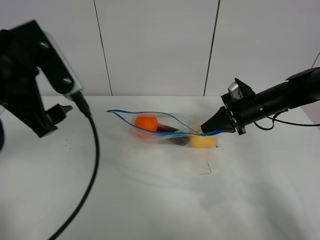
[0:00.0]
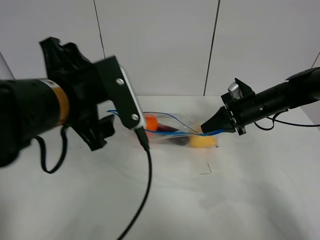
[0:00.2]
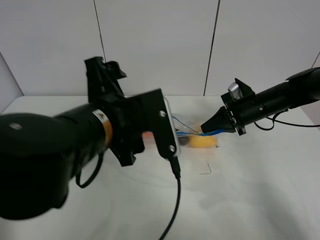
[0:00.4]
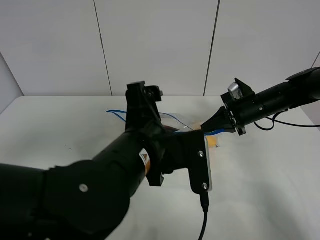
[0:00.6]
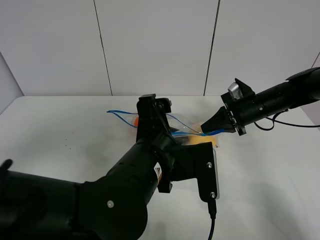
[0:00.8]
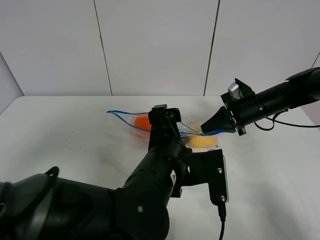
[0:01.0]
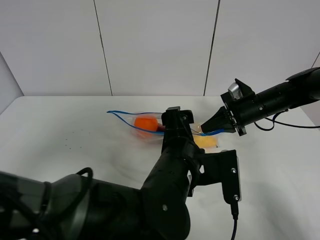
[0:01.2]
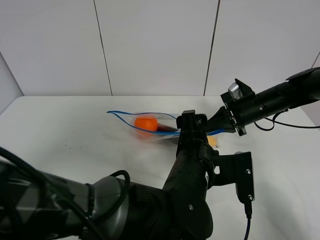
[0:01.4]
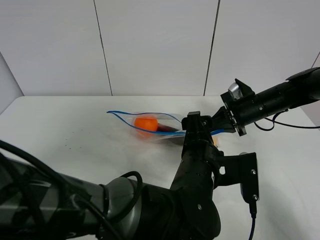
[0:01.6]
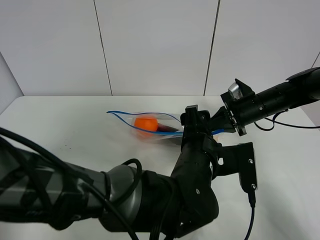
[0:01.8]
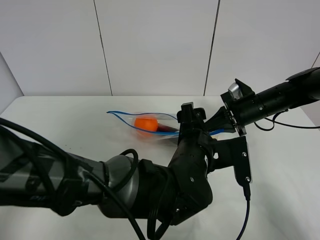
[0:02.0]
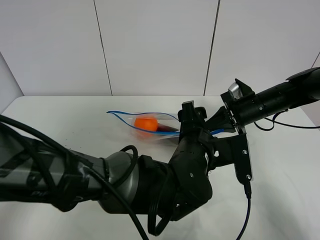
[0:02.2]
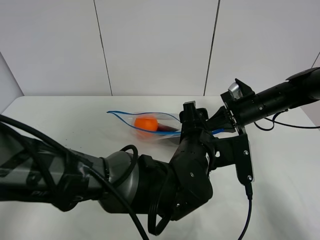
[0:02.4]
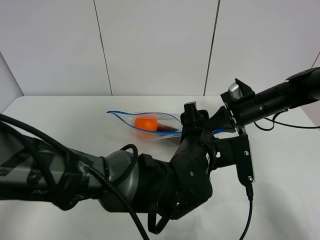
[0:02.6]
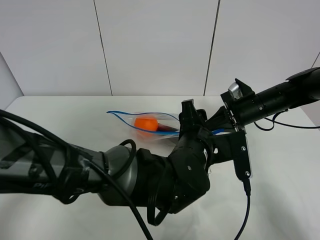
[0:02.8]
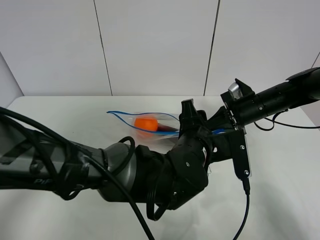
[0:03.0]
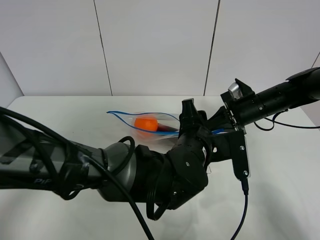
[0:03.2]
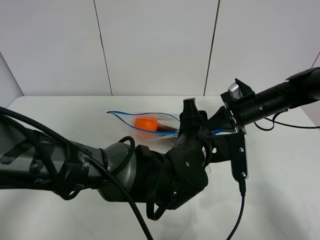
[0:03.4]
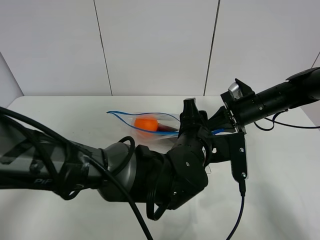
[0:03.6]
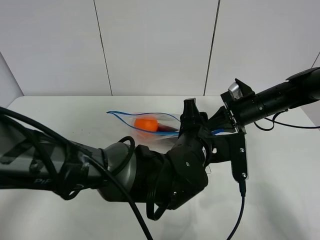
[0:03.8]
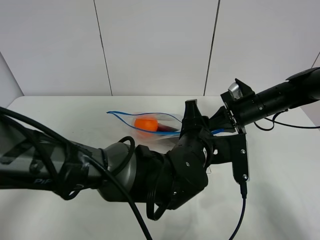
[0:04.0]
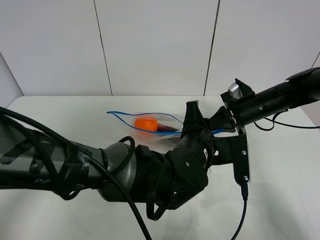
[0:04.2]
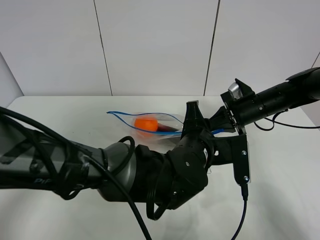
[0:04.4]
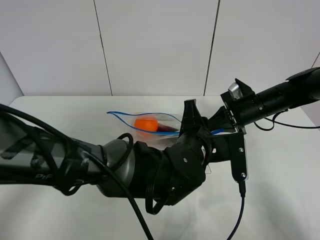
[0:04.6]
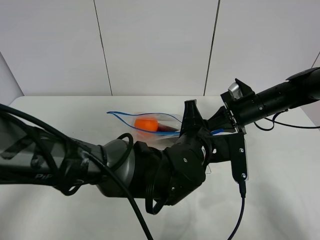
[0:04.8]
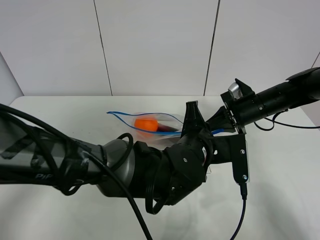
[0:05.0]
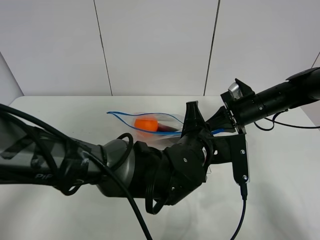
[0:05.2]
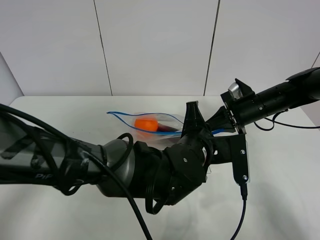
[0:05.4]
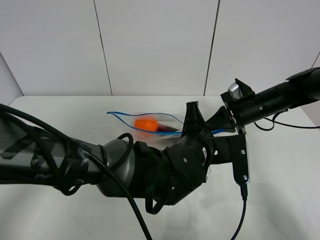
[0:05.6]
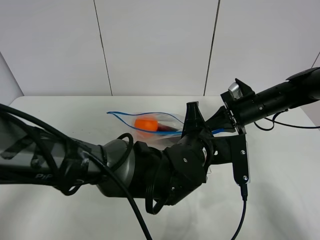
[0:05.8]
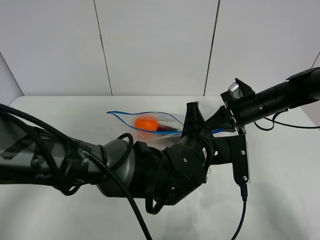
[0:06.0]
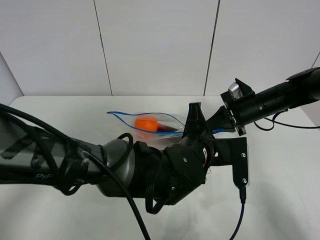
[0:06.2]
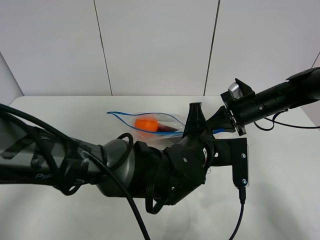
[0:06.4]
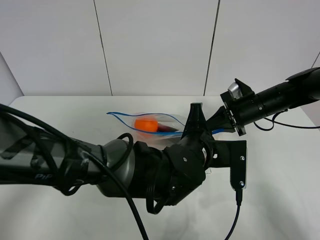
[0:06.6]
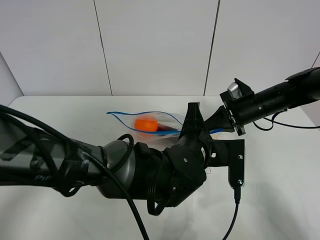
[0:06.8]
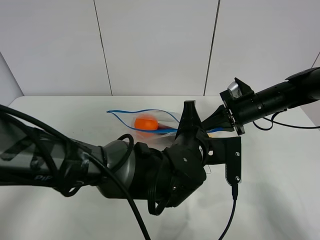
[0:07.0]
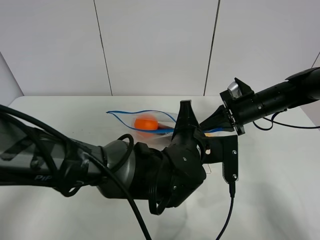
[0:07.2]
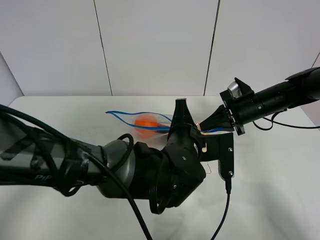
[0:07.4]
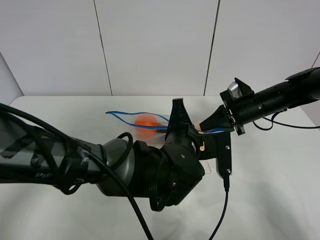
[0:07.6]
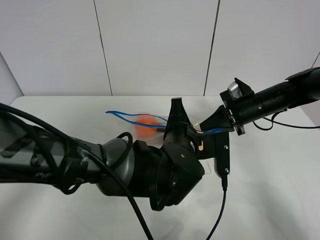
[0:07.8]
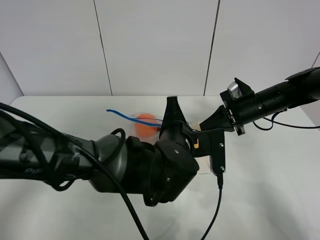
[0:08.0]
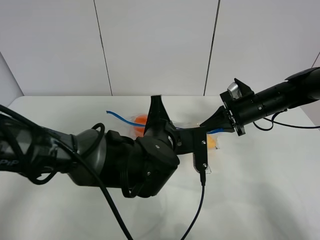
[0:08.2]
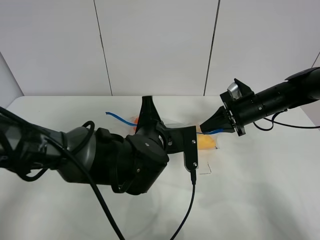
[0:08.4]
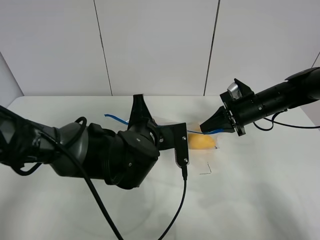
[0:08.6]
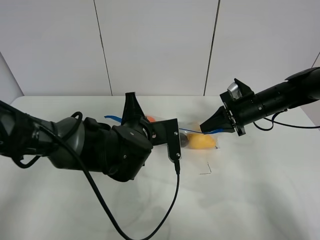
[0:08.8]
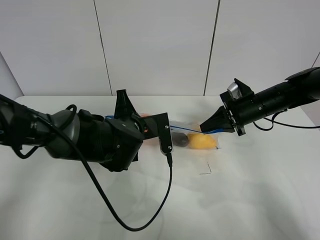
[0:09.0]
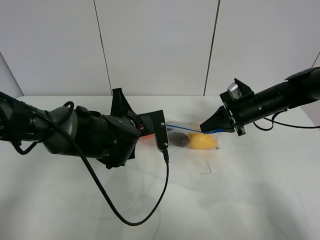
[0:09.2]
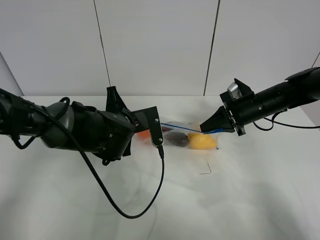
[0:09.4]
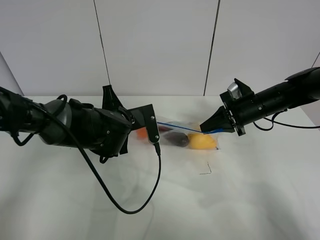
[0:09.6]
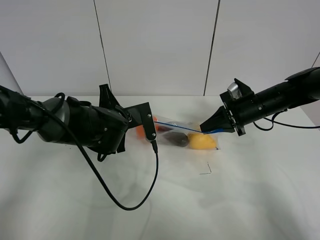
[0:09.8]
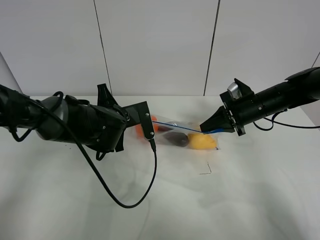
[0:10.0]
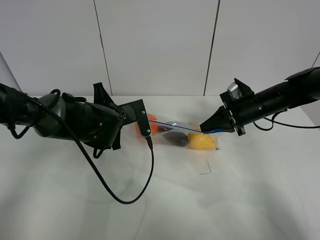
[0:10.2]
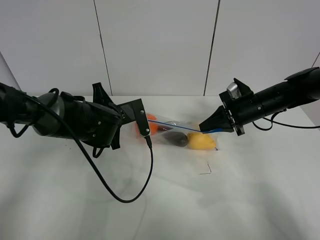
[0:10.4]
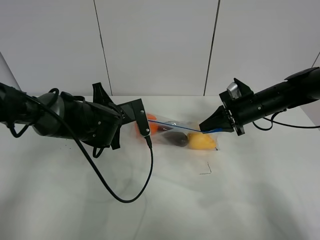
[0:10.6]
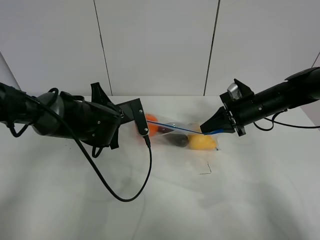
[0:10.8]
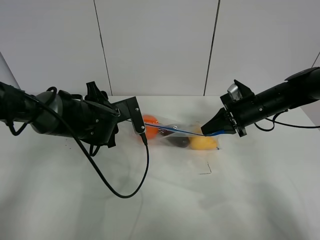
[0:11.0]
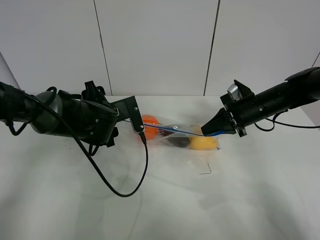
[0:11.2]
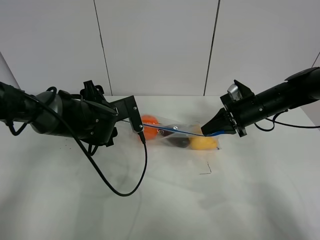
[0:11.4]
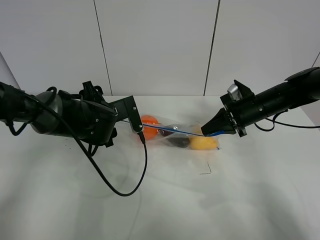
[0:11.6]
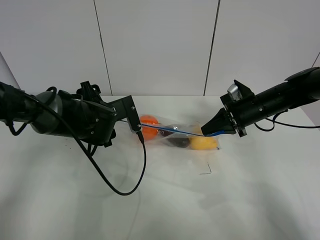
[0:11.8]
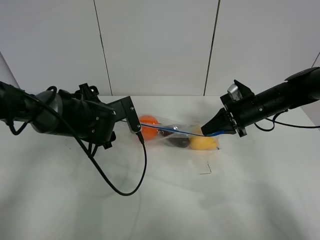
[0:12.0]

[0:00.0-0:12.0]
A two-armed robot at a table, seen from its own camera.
Step, 0:00.0 to 0:11.0: Pull the fruit bag with left gripper.
0:00.0 to 0:01.6: The left gripper travels to the right and downward by roughly 30 cm.
0:03.0 to 0:04.4: Neither gripper changes place.
0:04.4 to 0:06.0: The left gripper closes its fingers.
0:06.0 to 0:07.6: The grippers stay close to where they were, moving slightly.
0:07.6 to 0:09.0: The left gripper goes roughly 10 cm to the left and forward.
0:09.0 to 0:10.4: The left gripper ends up about 5 cm from where it was.
0:10.4 to 0:12.0: The left gripper opens.

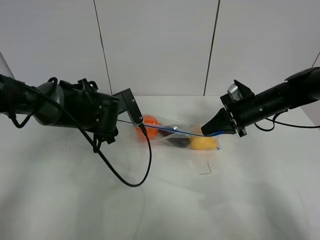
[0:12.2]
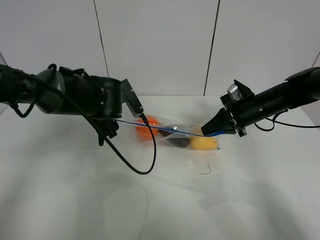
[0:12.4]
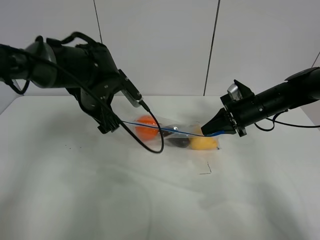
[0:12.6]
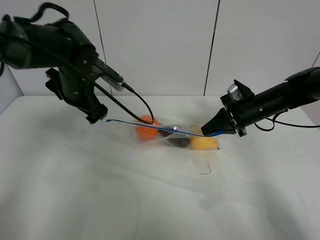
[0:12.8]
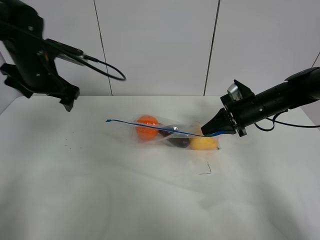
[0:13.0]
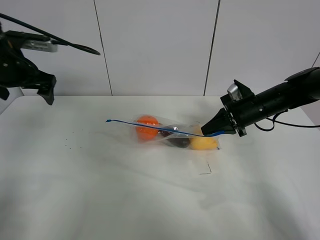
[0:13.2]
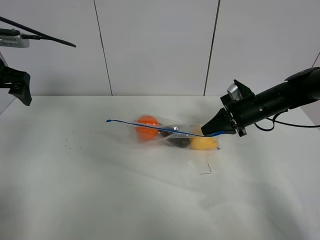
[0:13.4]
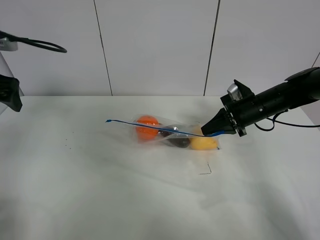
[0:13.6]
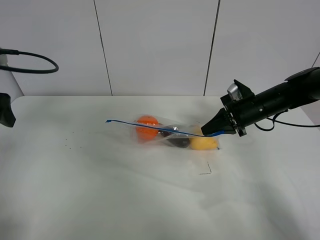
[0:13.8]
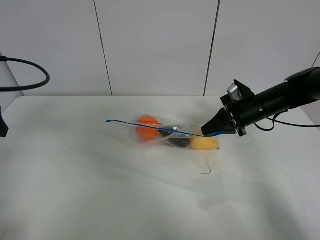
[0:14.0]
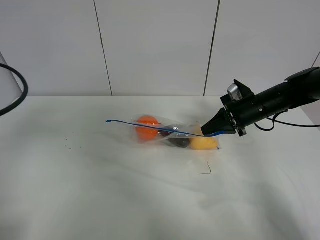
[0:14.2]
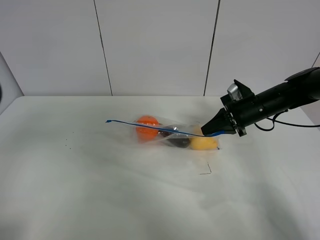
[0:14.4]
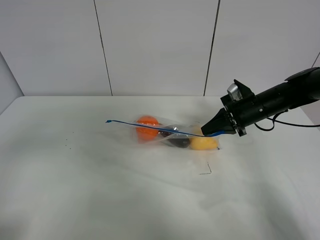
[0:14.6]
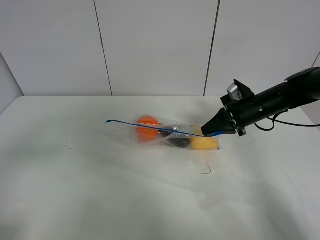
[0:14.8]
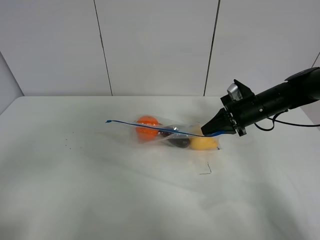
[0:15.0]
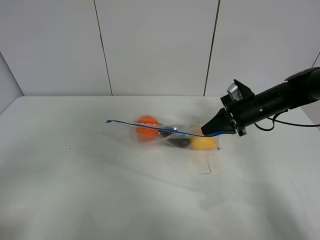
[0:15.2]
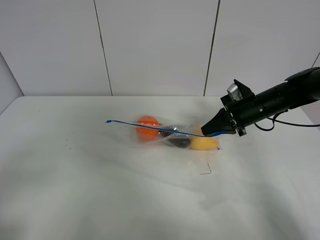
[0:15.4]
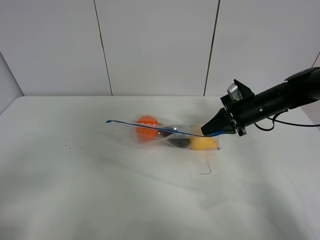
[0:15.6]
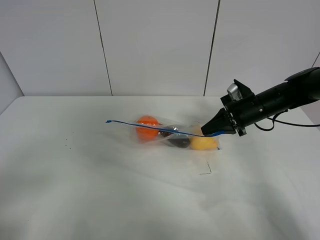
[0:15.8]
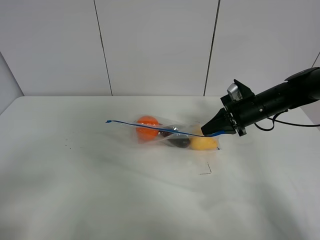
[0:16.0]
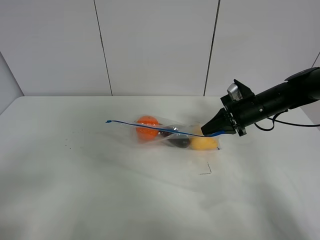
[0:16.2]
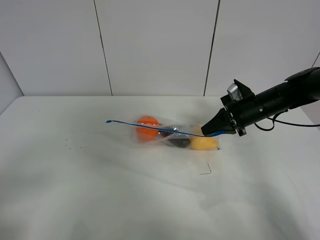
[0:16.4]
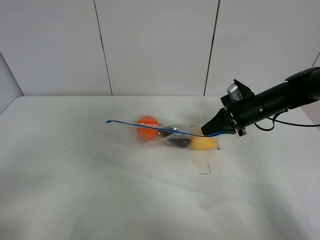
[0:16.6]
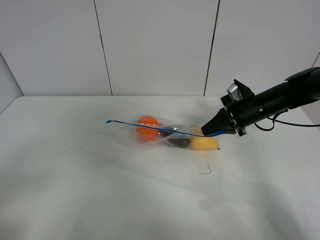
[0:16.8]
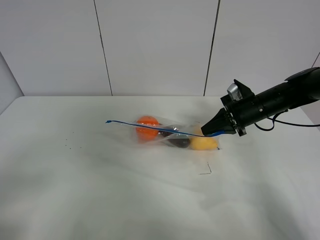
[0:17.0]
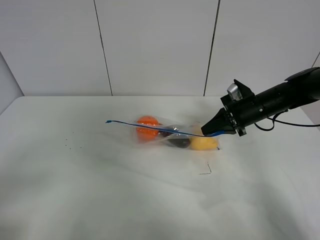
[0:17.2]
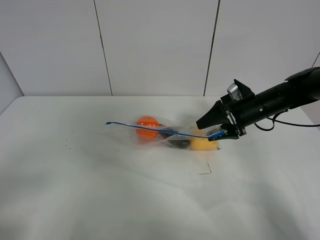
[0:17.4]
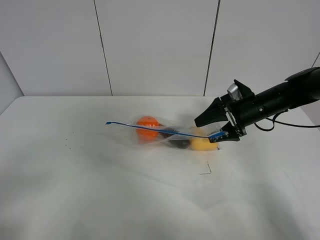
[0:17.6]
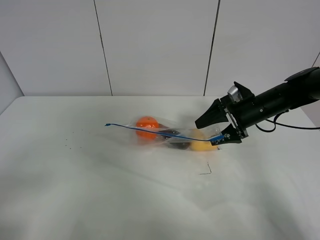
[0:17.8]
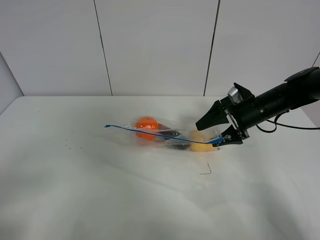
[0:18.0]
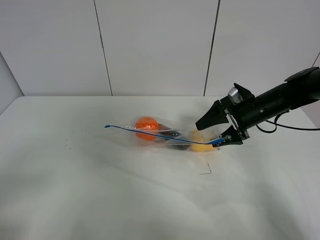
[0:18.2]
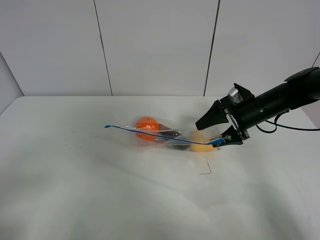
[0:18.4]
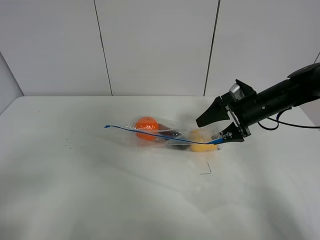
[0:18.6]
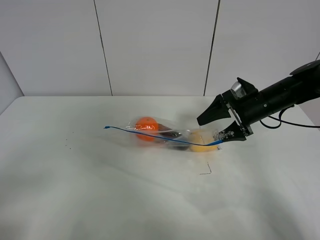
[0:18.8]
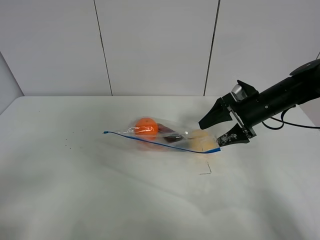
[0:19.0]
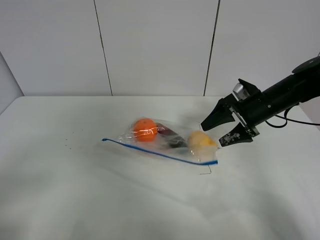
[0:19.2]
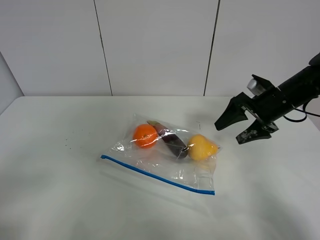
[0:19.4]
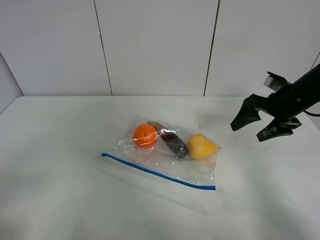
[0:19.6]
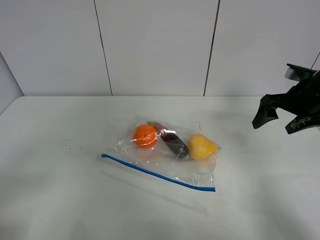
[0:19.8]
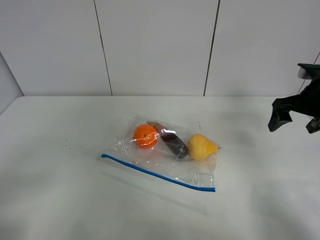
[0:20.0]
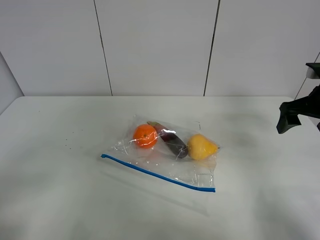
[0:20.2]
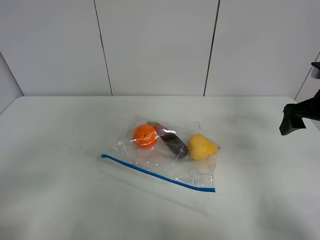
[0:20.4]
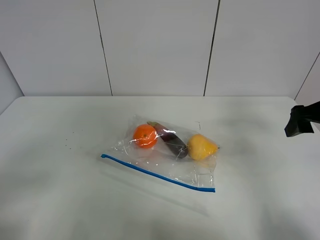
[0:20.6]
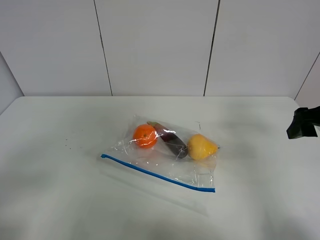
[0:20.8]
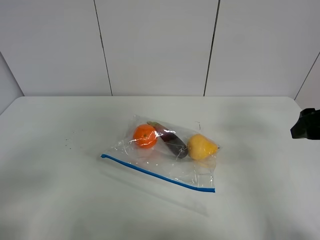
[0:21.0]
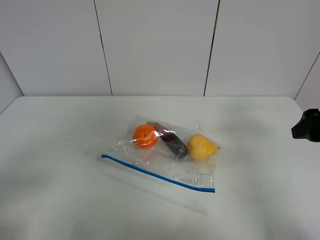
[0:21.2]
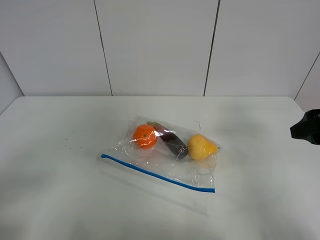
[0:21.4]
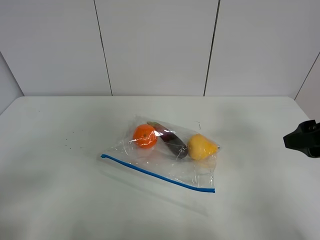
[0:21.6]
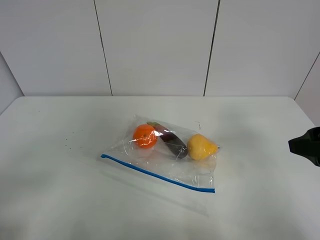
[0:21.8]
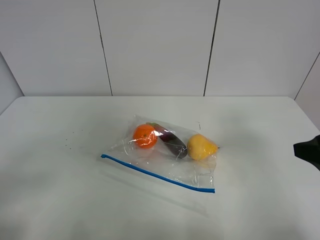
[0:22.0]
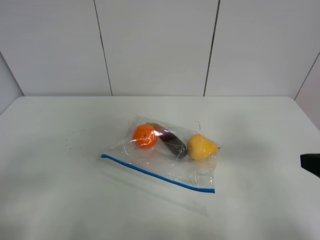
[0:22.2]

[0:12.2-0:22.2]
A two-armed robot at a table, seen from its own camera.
0:12.2 to 0:13.6: The left gripper shifts some 25 cm to the left and upward.
0:13.6 to 0:15.0: The left gripper heads backward, covering roughly 25 cm.
0:16.4 to 0:18.0: The right gripper opens its fingers.
0:18.0 to 0:19.4: The right gripper changes place by roughly 5 cm.
0:19.4 to 0:20.8: The right gripper travels backward, upward and to the right by approximately 15 cm.
0:20.8 to 0:22.2: The right gripper is displaced backward by about 15 cm.
